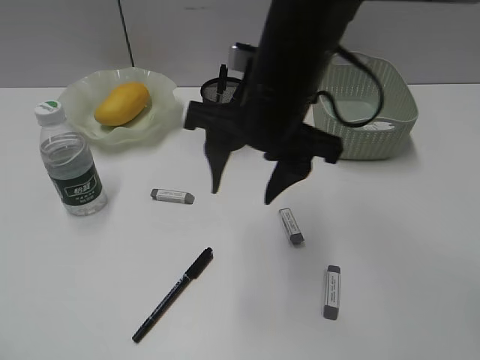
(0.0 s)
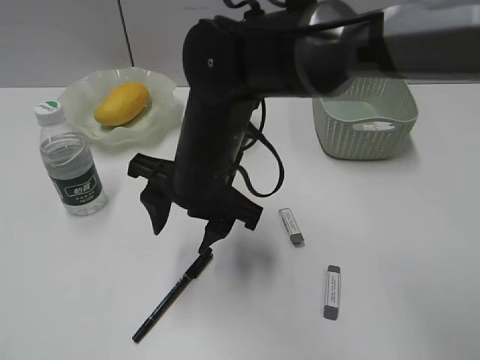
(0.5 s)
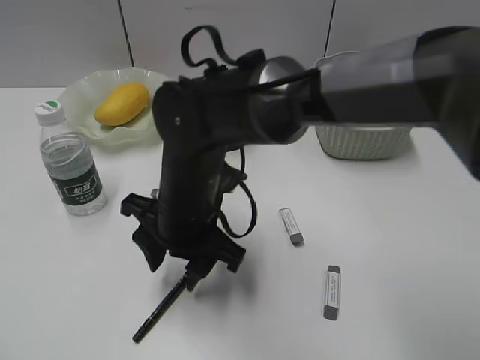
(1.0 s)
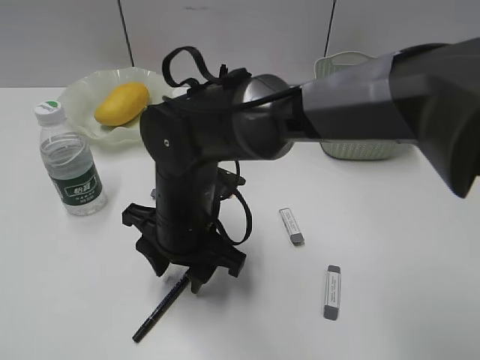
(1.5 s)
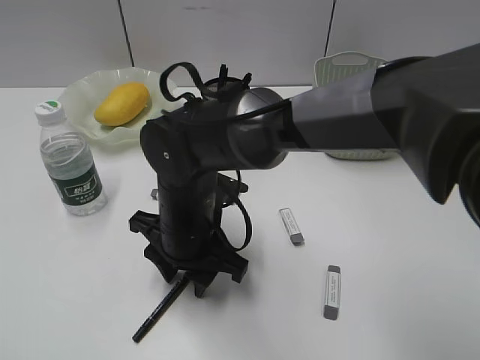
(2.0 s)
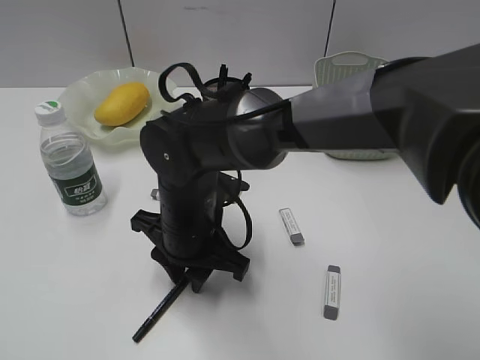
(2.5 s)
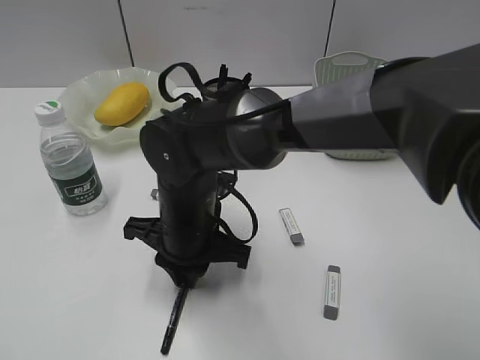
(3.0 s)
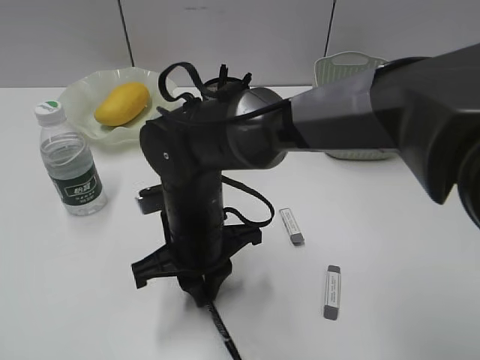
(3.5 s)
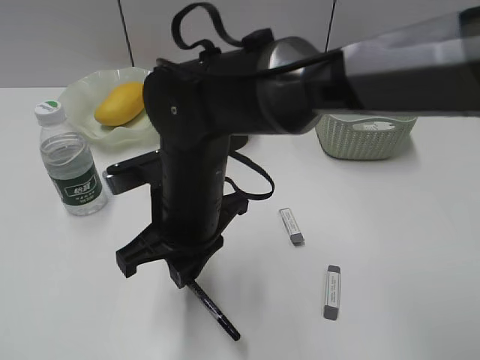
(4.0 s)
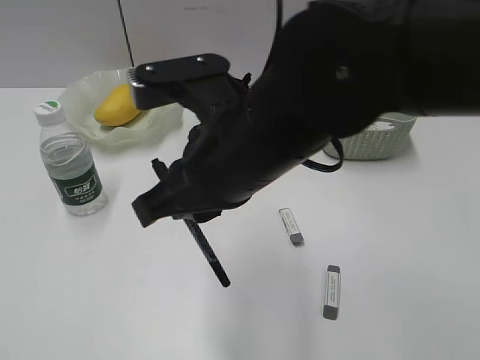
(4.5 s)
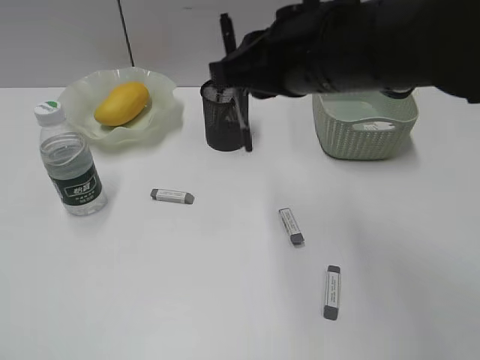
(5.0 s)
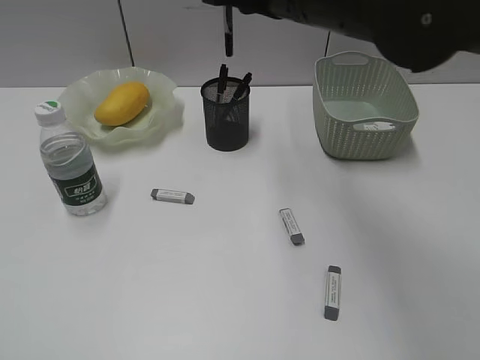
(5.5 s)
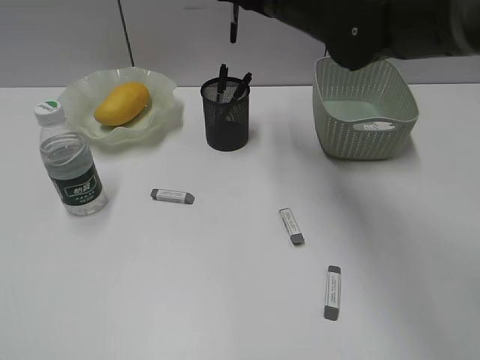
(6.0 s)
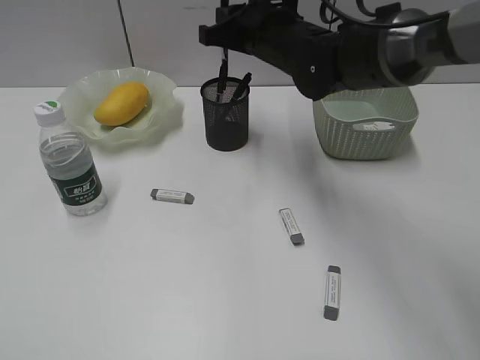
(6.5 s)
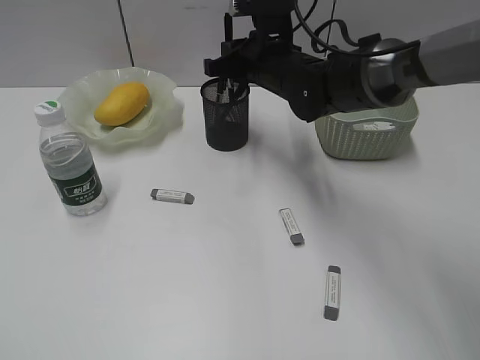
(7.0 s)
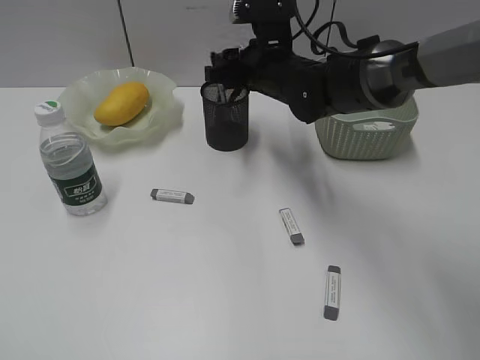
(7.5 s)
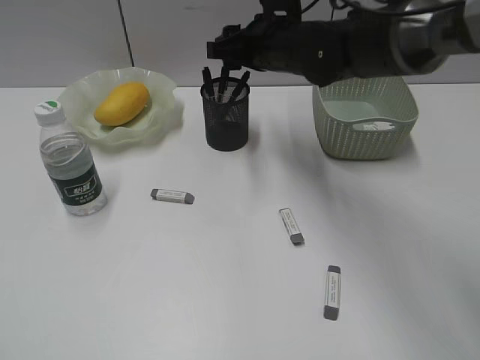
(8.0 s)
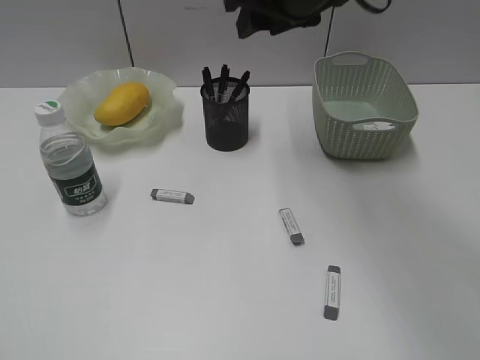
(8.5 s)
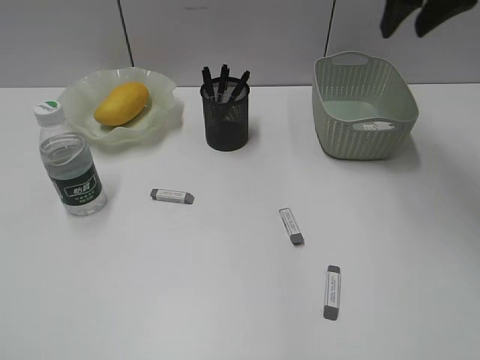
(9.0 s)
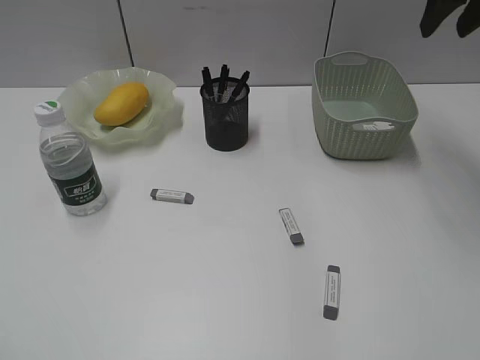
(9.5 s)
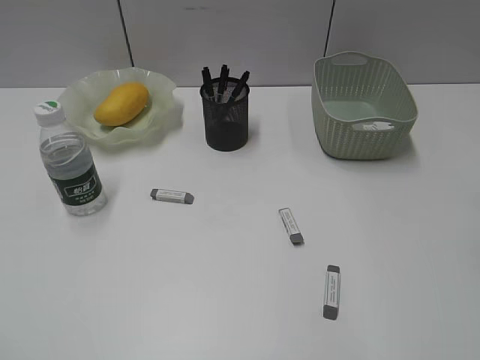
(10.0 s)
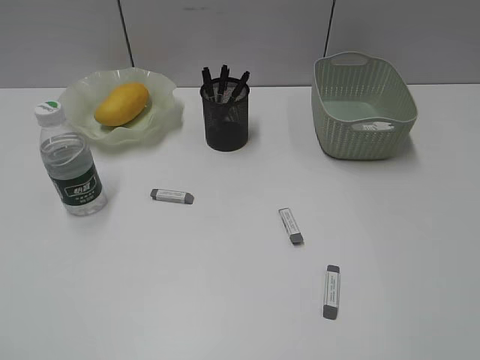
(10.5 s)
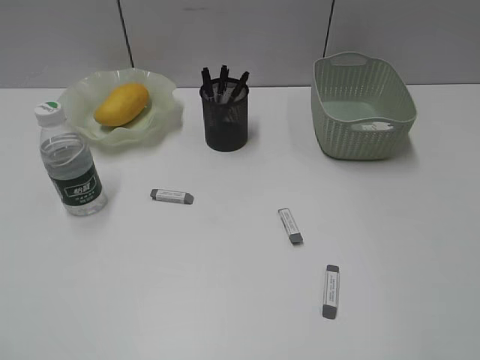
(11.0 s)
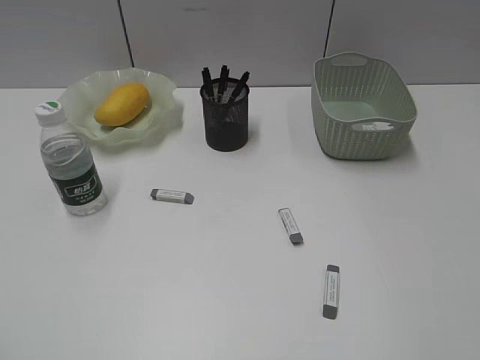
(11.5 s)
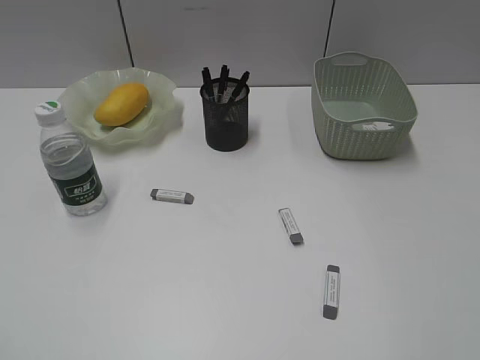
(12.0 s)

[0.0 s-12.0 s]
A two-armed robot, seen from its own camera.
Step, 0.0 to 2.5 s: Grasp the black pen with right gripper.
Step, 3.0 to 7.5 s: Place the black pen in pen holder with right gripper.
0.0 to 2.0 s: The right gripper goes approximately 20 cm downward and to the left.
2.0 to 4.0 s: The right gripper closes up.
4.0 to 6.0 s: The right gripper goes approximately 25 cm forward, upward and to the right.
6.0 to 8.0 s: The right gripper shifts some 10 cm downward, and opens its fingers.
8.0 to 10.0 s: The right gripper is displaced to the right, backward and upward by about 35 cm.

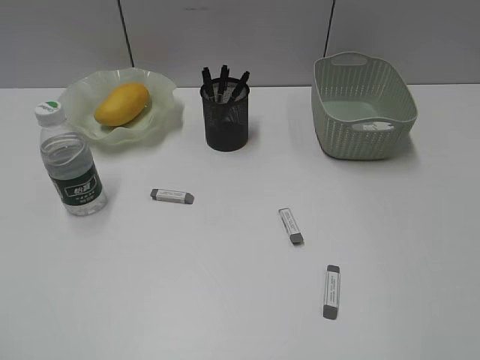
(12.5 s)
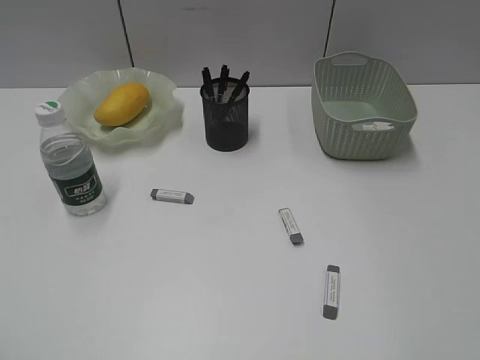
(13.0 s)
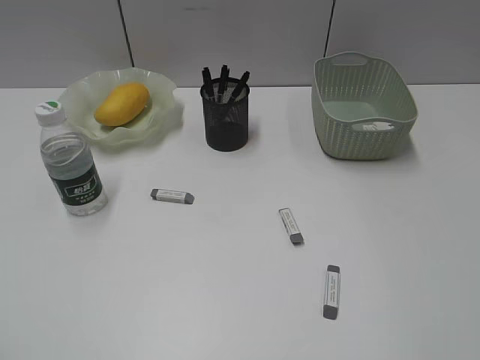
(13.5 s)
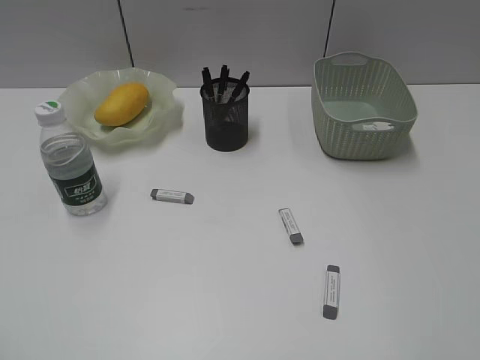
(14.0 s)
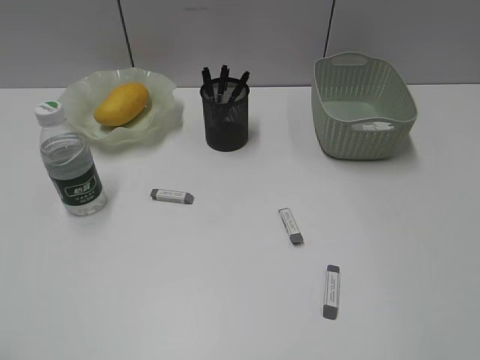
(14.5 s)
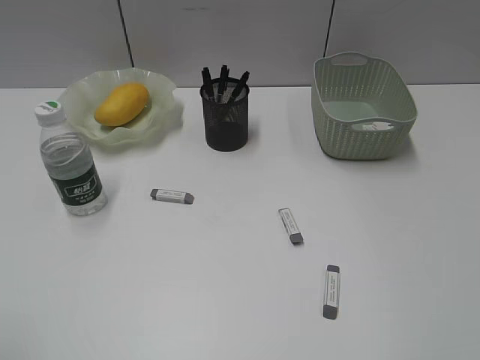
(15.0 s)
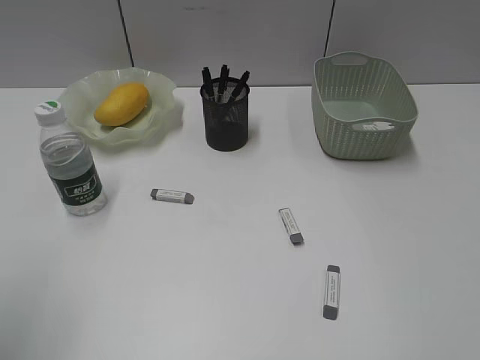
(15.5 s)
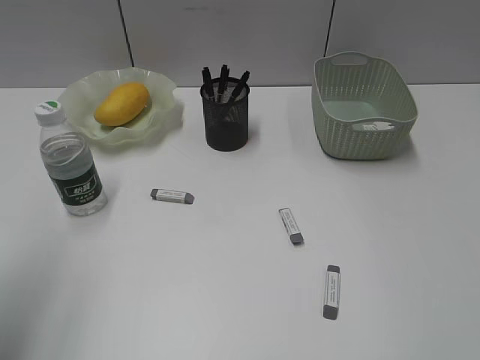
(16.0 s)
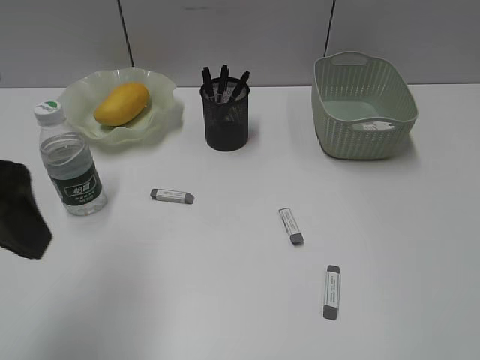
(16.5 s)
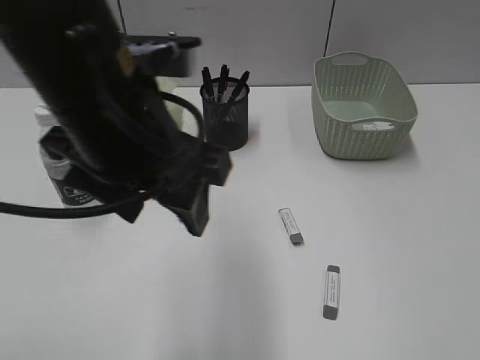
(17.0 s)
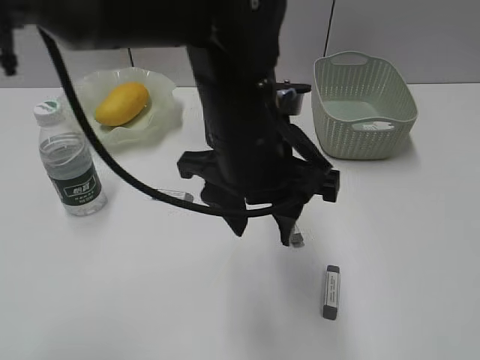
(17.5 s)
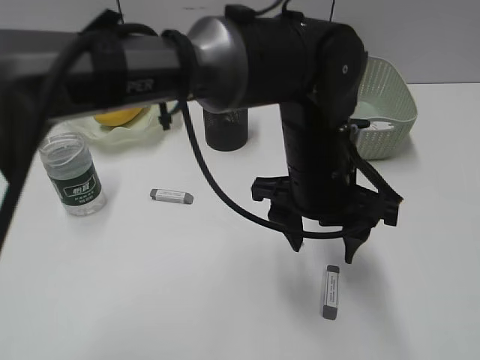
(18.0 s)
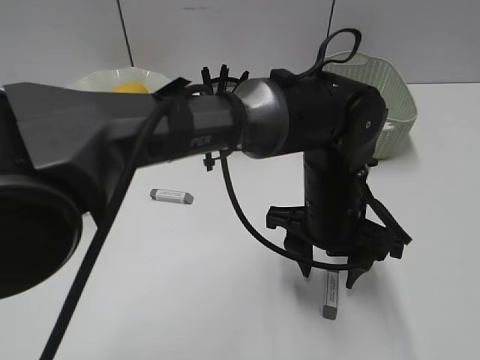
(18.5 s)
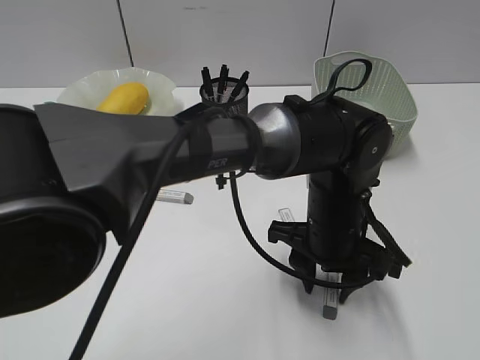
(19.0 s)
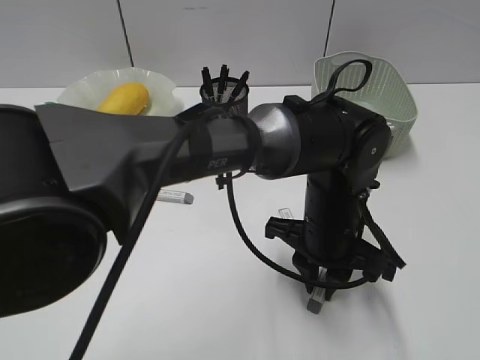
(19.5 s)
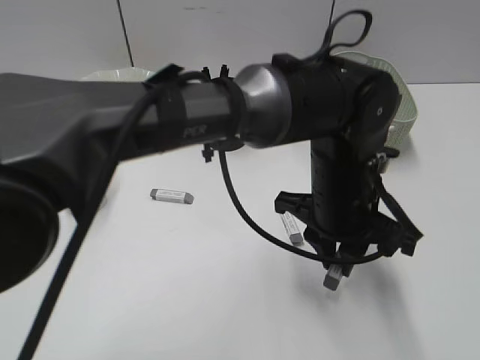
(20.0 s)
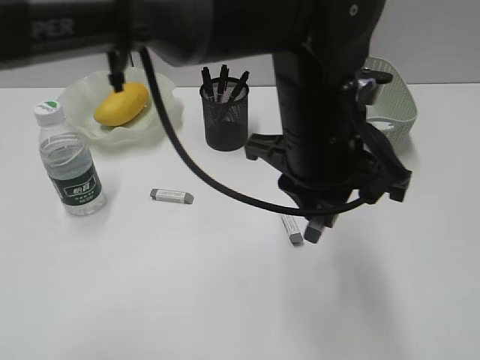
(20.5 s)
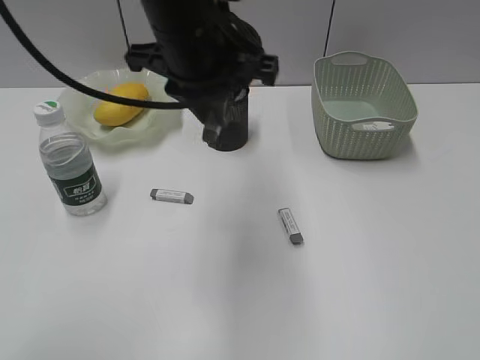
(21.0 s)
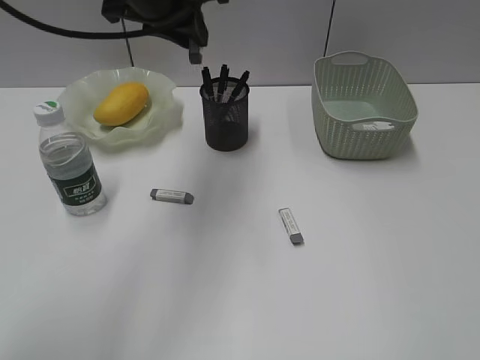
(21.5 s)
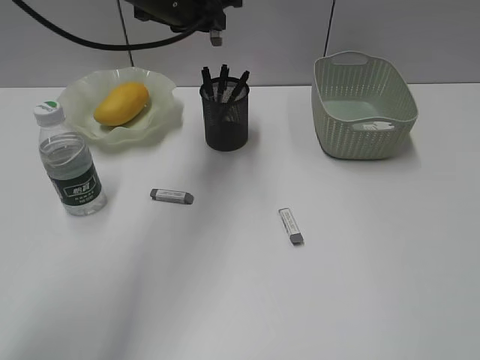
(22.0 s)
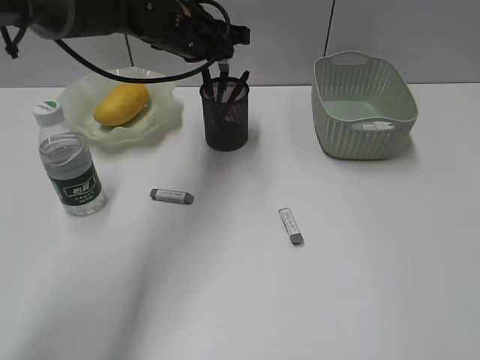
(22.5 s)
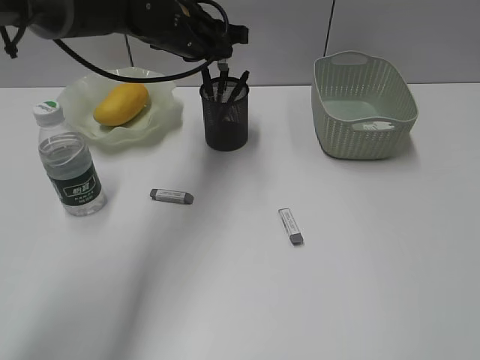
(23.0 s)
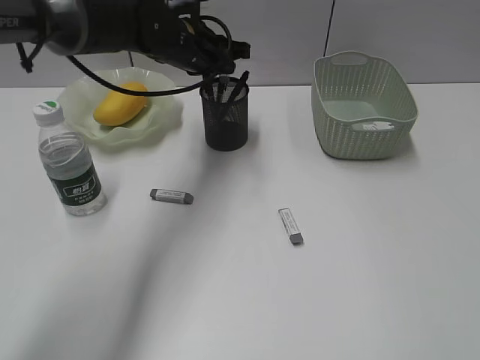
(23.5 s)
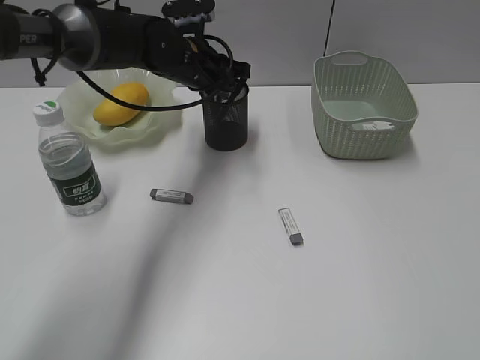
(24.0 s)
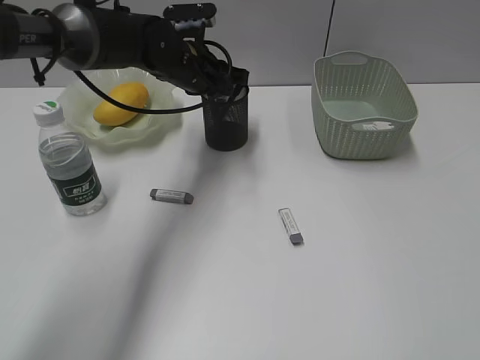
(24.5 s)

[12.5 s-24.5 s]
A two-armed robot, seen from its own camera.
Step, 12.5 to 19.5 s: Grasp the eraser with left gripper.
14.5 to 16.5 s: The left gripper moves forward and to the right, roughly 20 cm, and opens.
16.5 to 18.5 s: The left gripper goes some 35 cm to the right and downward.
18.5 to 20.5 s: The left gripper moves upward, about 10 cm, and closes.
20.5 to 22.5 s: The left gripper heads forward and to the left, covering approximately 25 cm.
22.5 to 24.5 s: The left gripper goes about 5 cm downward.

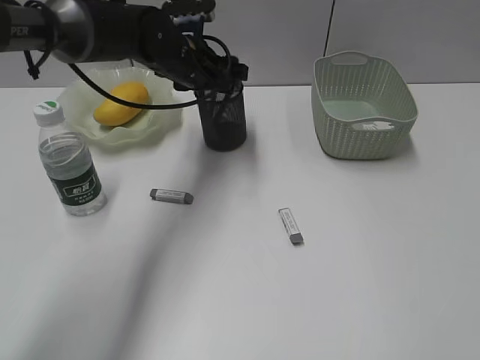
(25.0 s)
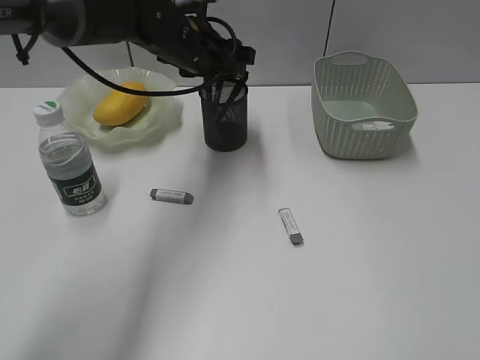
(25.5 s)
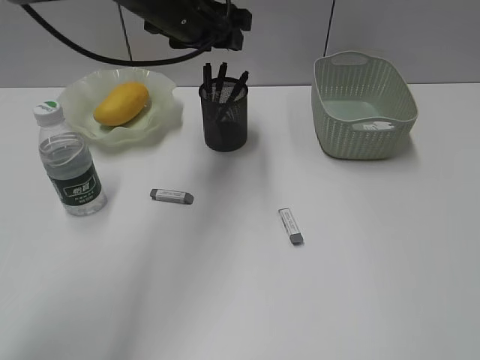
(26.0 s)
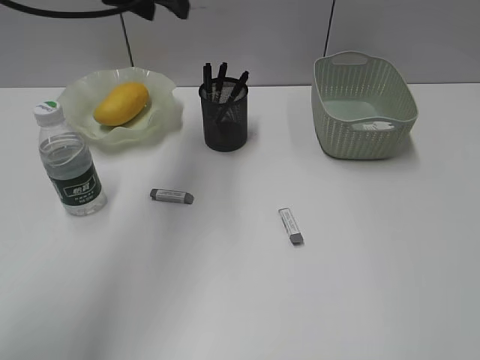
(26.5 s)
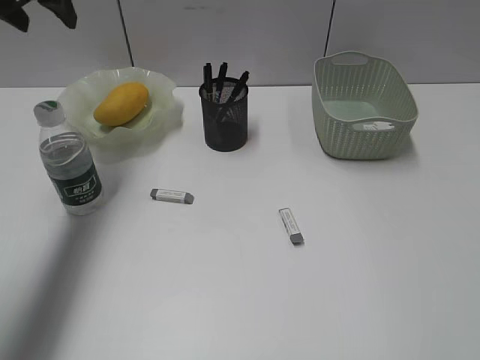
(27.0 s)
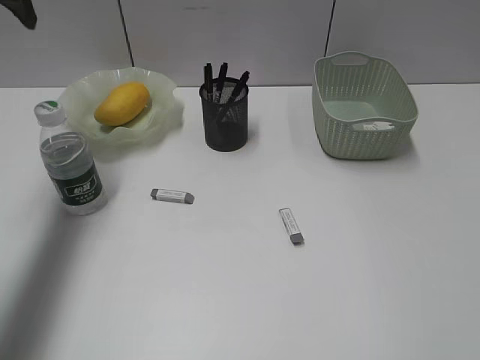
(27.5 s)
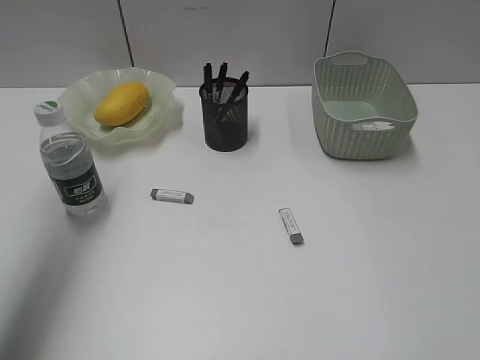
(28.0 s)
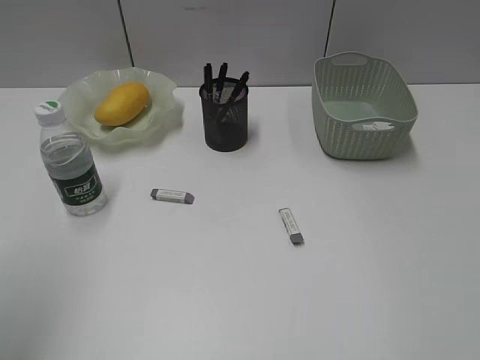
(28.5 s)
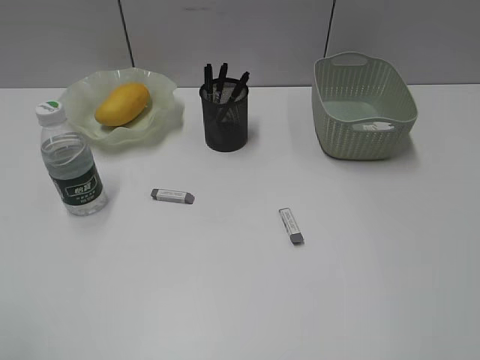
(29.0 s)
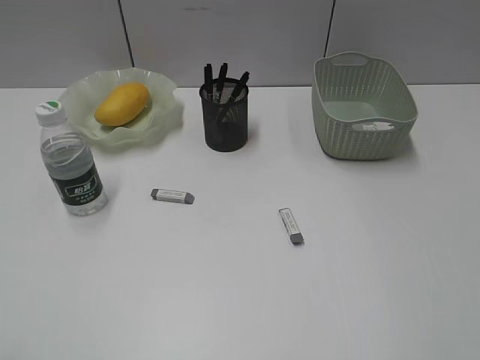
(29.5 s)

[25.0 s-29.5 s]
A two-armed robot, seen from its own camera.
25.0 to 27.0 s: The left gripper travels to the left and upward by about 25 cm.
27.0 to 29.5 s: The left gripper goes about 40 cm backward.
